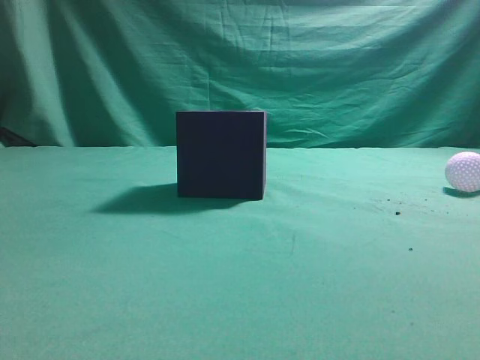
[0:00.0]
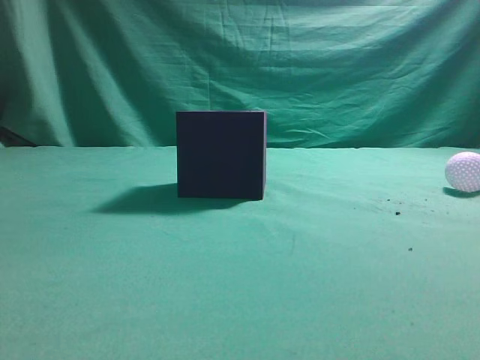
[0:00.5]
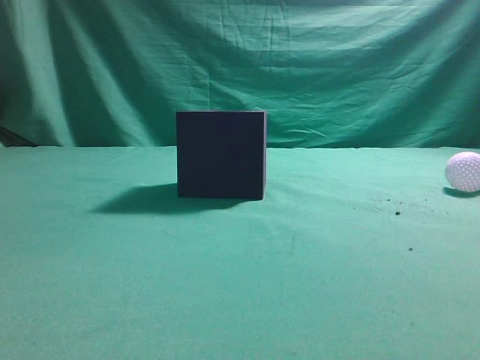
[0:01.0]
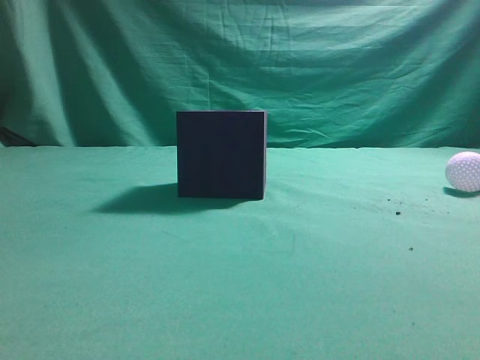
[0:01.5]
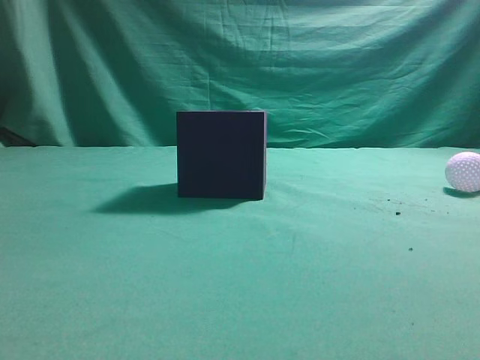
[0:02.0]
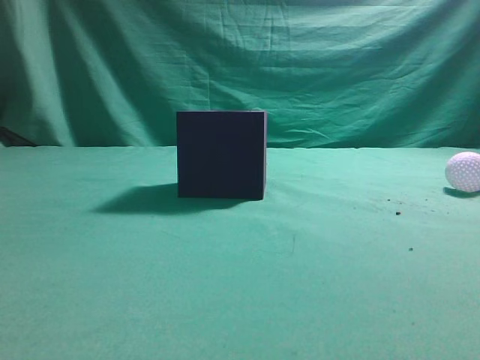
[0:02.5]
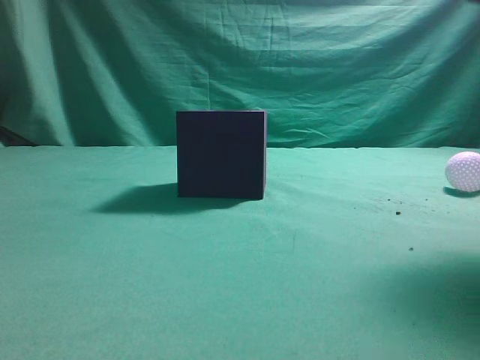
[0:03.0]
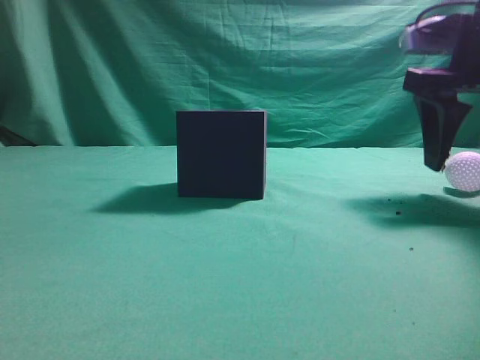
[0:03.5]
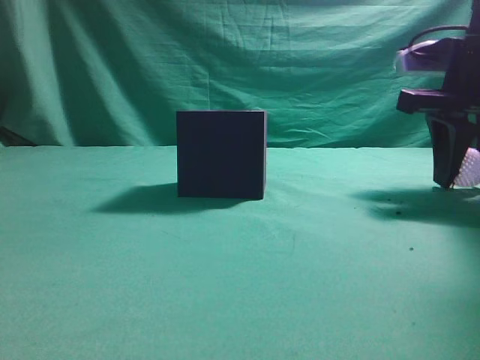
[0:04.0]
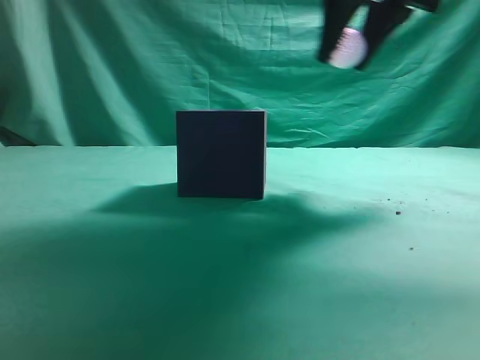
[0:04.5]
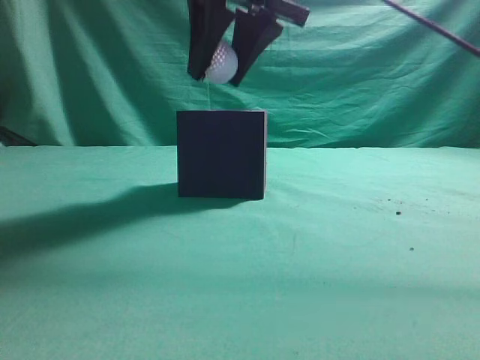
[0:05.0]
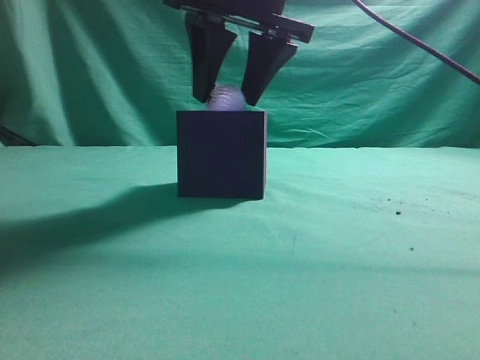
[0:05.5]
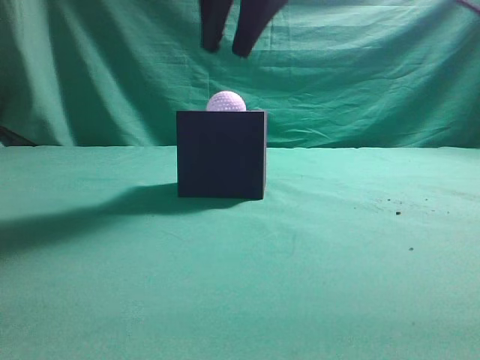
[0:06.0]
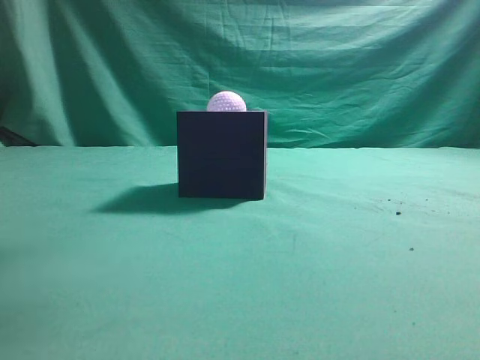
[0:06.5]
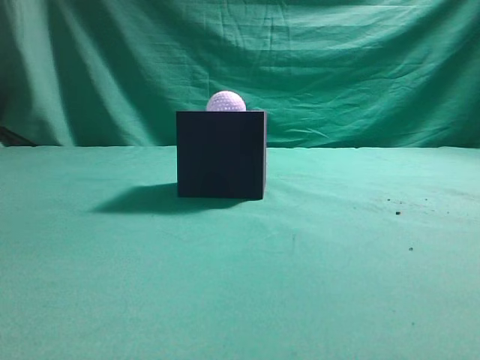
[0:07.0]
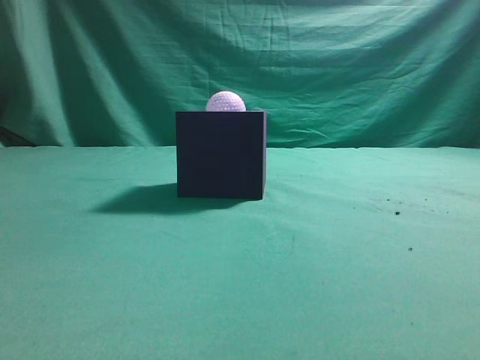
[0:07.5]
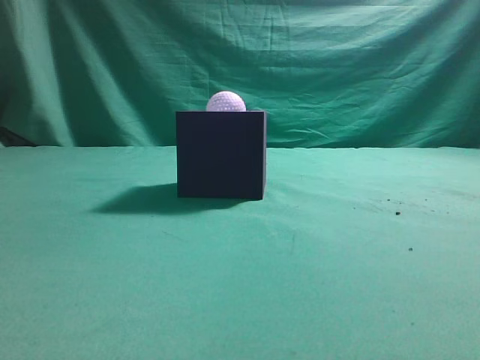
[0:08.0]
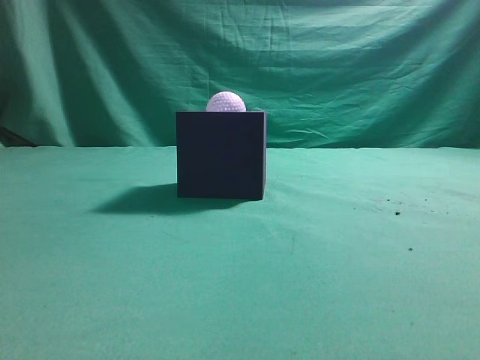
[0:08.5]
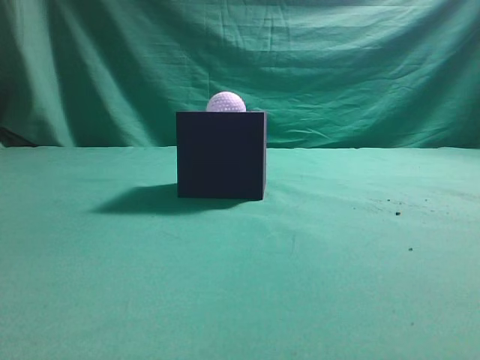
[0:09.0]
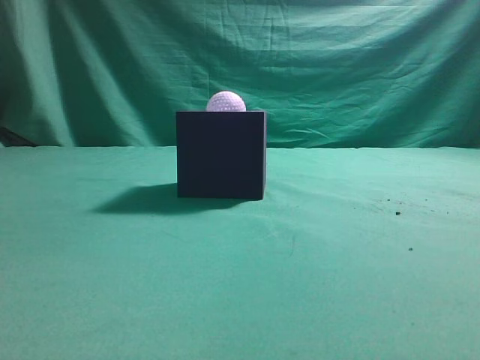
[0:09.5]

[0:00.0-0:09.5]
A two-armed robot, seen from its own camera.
Task of the whole recording: Pick up the ball and place it in the circular groove above the cube.
Step, 0:00.0 to 0:04.0: Grasp the sphere on the table.
Step, 0:04.5 to 0:06.0: Place the sphere into the sphere-shaped recess.
0:02.0 to 0:04.0: The right gripper is displaced forward by approximately 25 cm, and opens.
0:04.0 to 0:05.5: The right gripper heads to the left and upward, covering about 20 cm.
0:05.5 to 0:07.5: The right gripper travels backward, to the right and upward by some 35 cm, and closes up.
